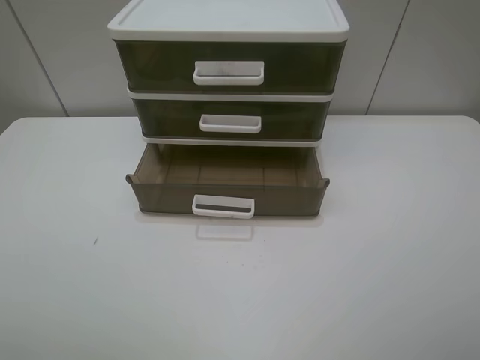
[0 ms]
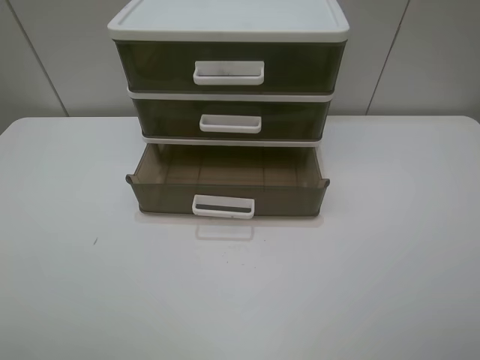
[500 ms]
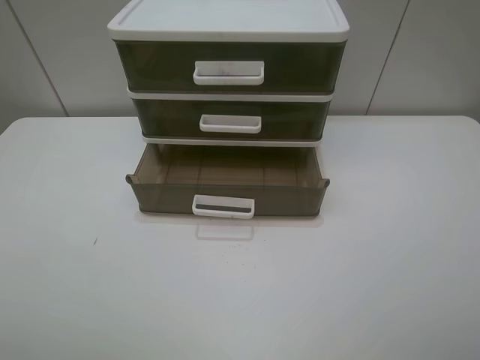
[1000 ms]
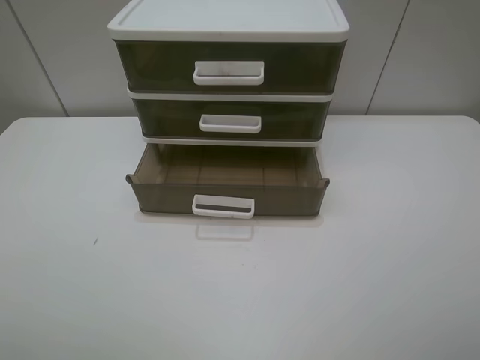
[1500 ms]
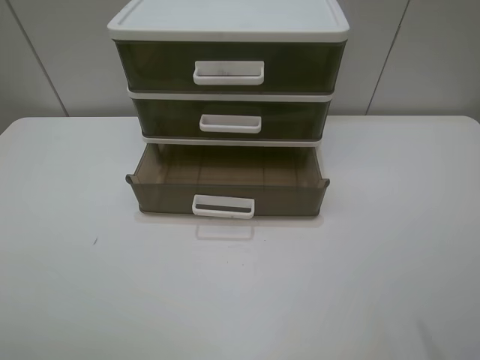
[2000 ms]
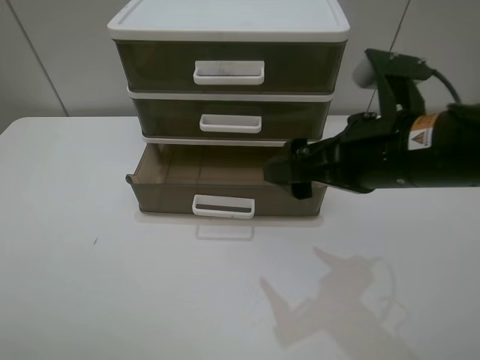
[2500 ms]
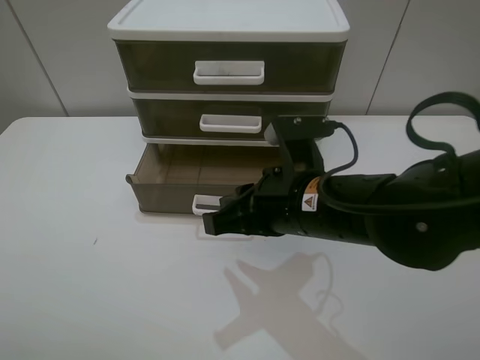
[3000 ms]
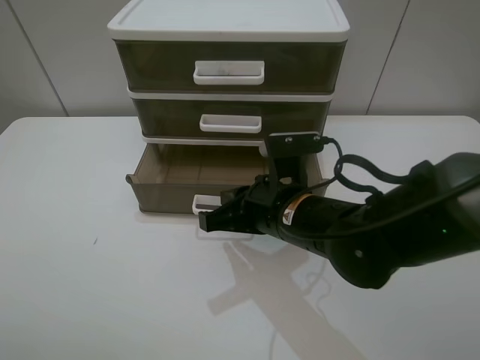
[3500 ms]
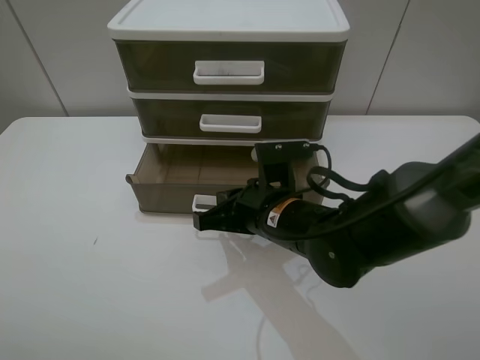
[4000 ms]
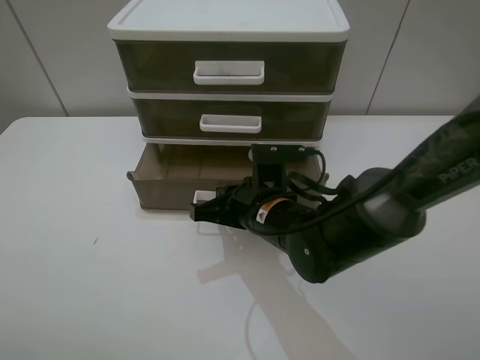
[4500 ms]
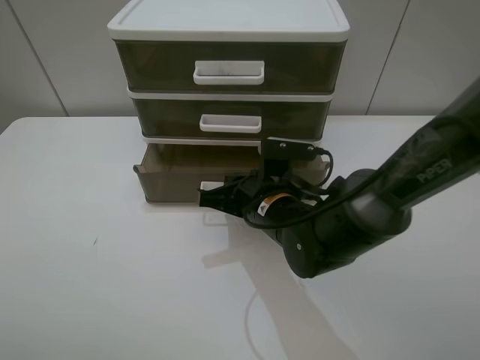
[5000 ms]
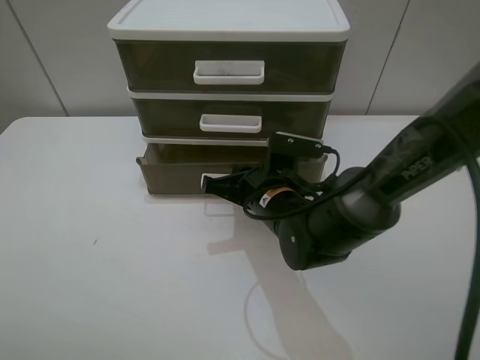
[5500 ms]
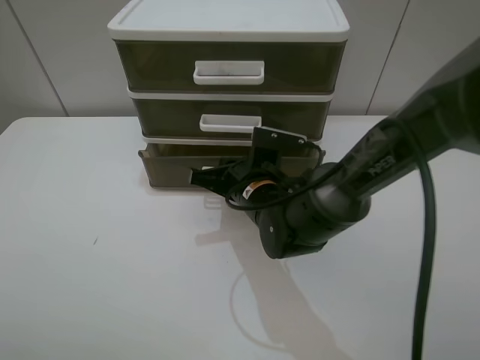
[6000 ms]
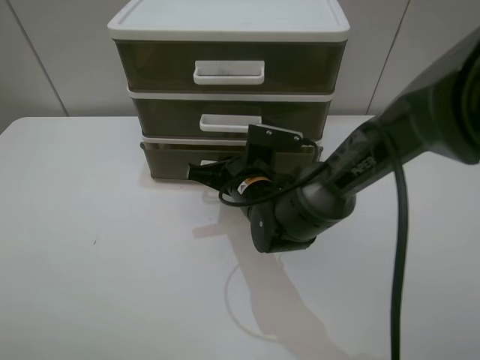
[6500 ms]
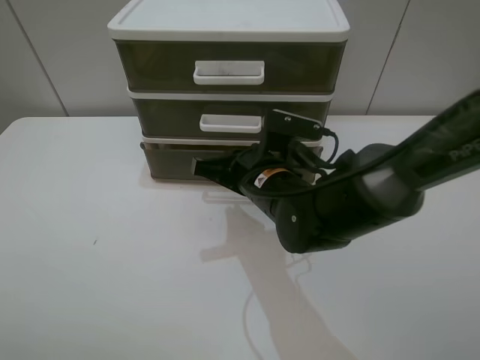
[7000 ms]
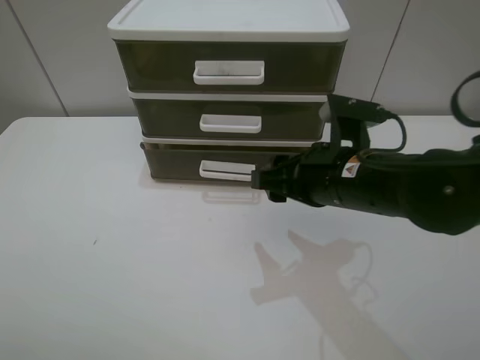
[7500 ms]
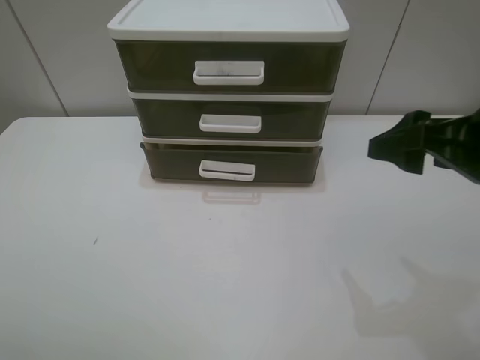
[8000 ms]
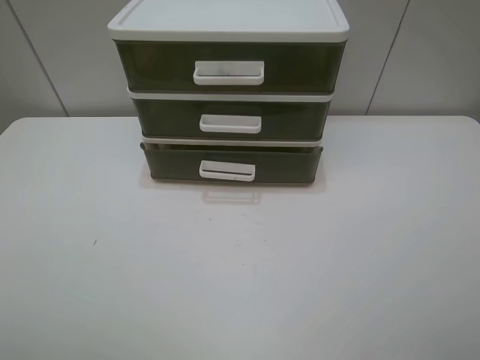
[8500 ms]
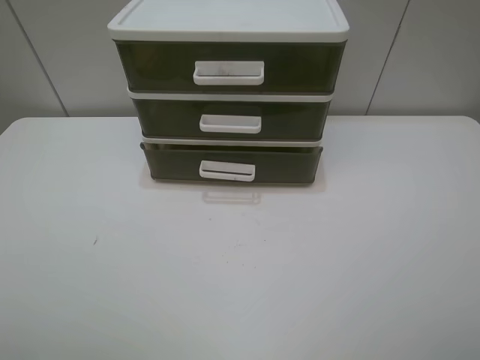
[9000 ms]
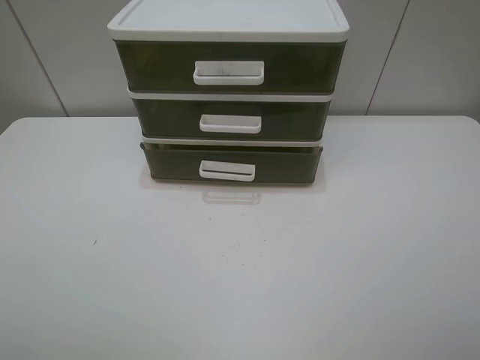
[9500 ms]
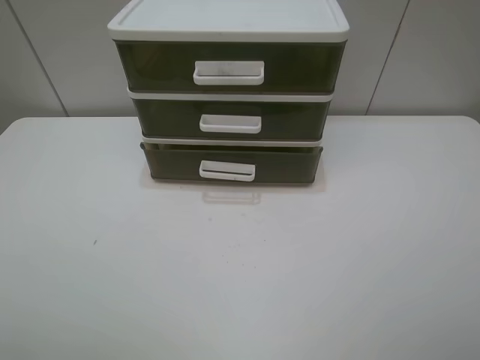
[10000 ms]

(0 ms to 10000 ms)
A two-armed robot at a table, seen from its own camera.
Task of the whole recording: close the bottom drawer.
Step, 0 ms - 4000 ms: Use the right gripper to contact the bottom layer of the storage cabinet.
Step, 4500 ms - 6500 ms: Push the bottom drawer closed.
2000 ms - 4000 ms: The right gripper is displaced to the left, downward and forward by about 35 cm, and closes its fingers.
4000 ms - 6000 ms: The right gripper shifts about 5 cm forward.
6000 ms - 8000 ms: The right gripper travels to the right, upward and backward by roughly 30 cm, and opens.
8000 ms - 10000 ms: The right gripper shifts roughly 15 cm backward.

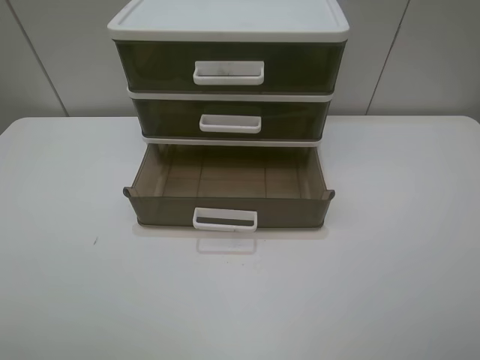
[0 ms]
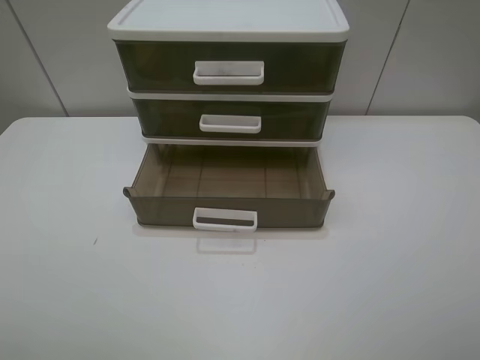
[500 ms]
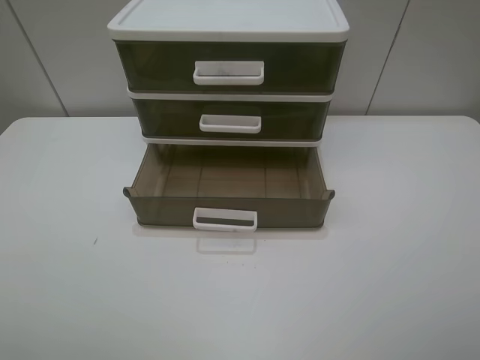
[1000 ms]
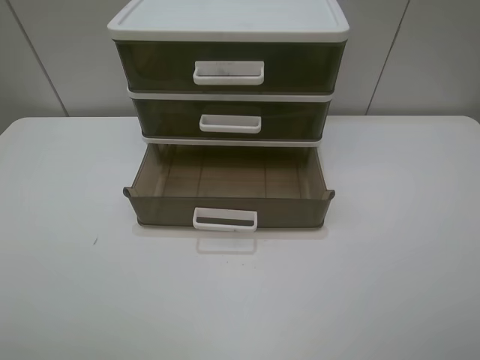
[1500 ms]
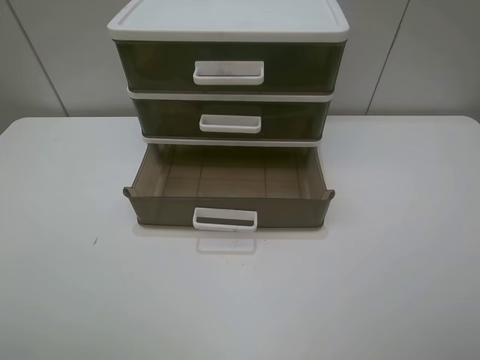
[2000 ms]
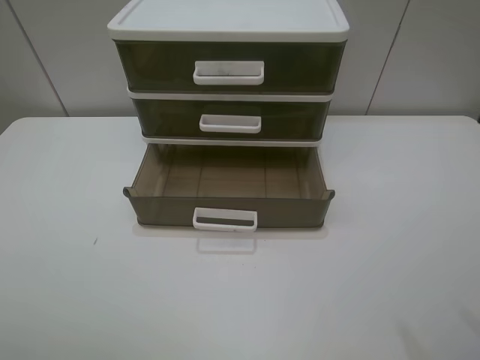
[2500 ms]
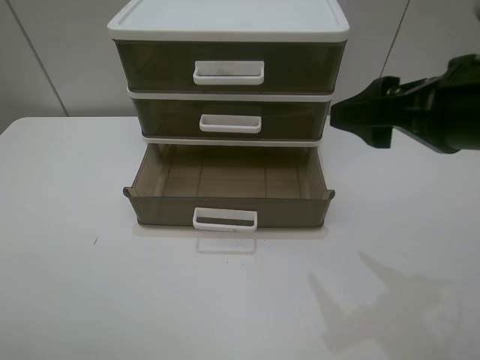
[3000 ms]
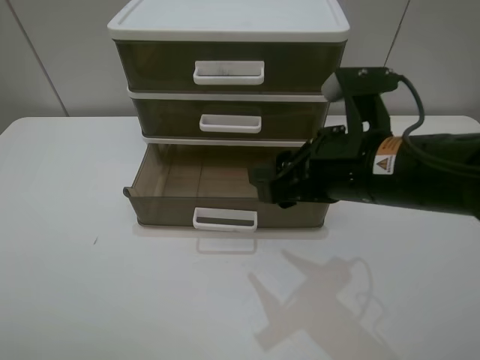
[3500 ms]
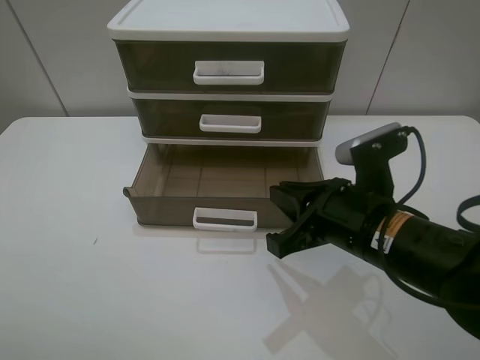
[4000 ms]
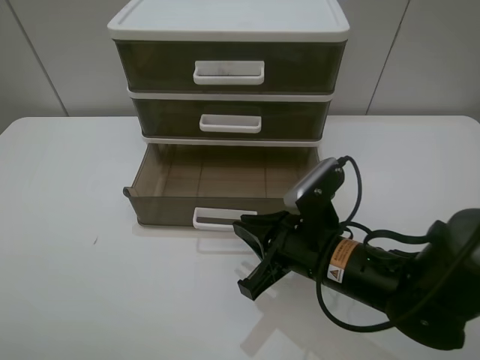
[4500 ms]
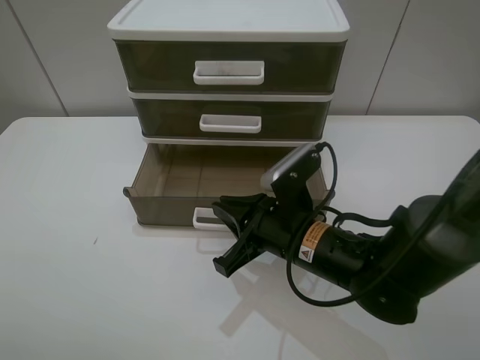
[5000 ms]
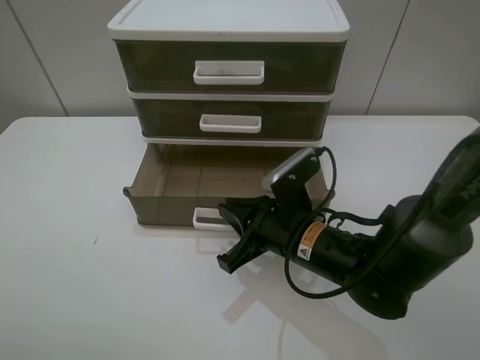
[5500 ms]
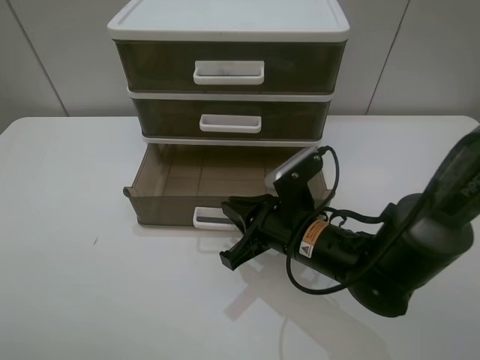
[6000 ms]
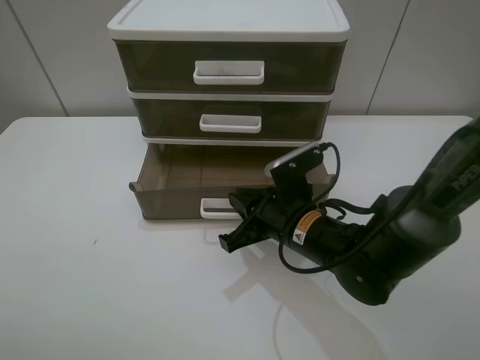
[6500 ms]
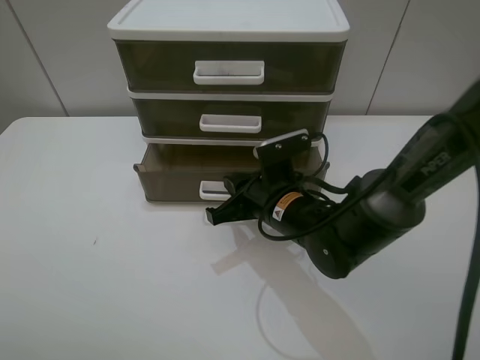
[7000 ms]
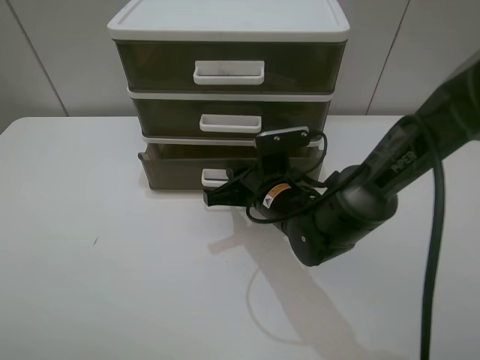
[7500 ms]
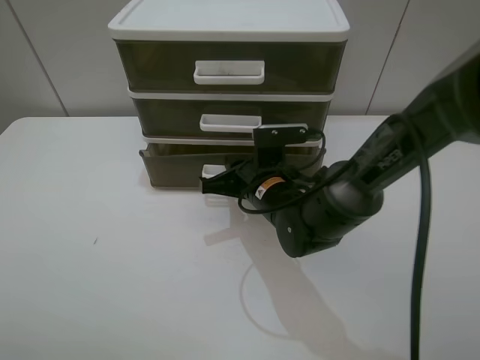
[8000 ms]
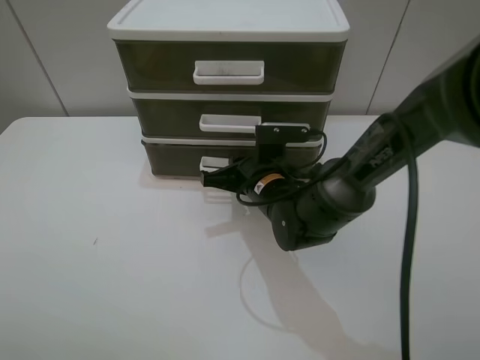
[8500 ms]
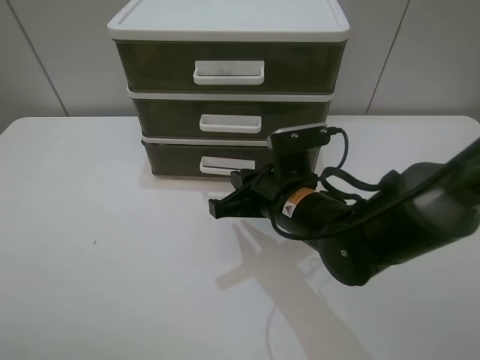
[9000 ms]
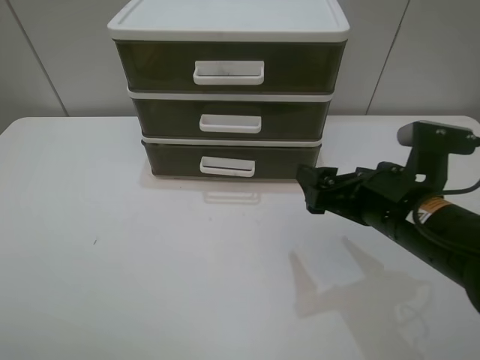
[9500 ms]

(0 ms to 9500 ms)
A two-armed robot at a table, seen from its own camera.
Task of the whole recording: close the bottom drawer.
Step, 0 ms - 5500 ms: Use the right gripper to contact the bottom layer of the storage cabinet.
Step, 6000 ms - 8000 ms: Push the bottom drawer closed.
0 ms - 2000 ms: The two grippers keep their place.
2000 ms - 4000 ms: The right gripper heads forward, to the left and downward, covering roughly 25 cm, and closes up.
4000 ms - 5500 ms: The right gripper moves downward and to the left, approximately 10 cm.
5500 ms - 7500 ms: The right gripper is displaced forward by approximately 5 cm.
7500 ms - 9500 ms: The right gripper travels to the right, backward and upward by approximately 20 cm, and opens up.

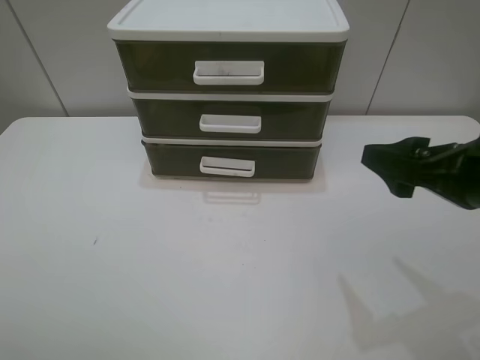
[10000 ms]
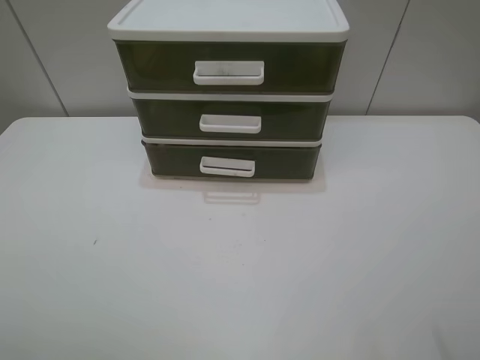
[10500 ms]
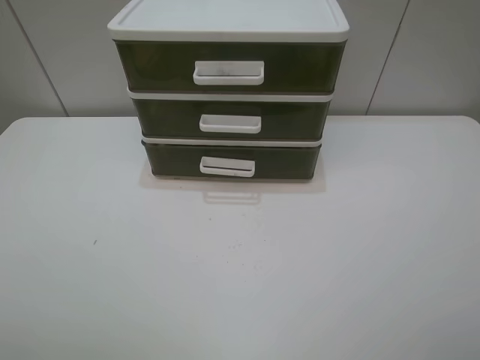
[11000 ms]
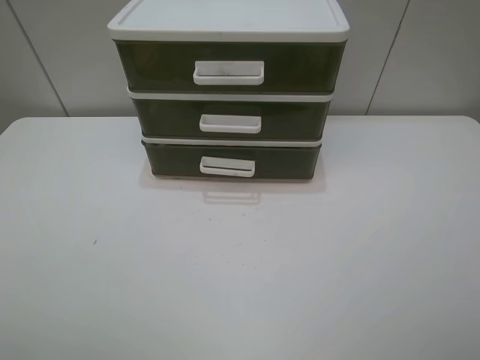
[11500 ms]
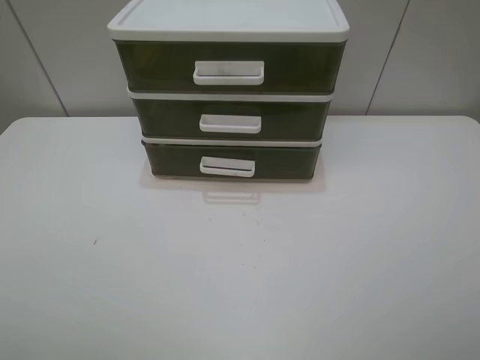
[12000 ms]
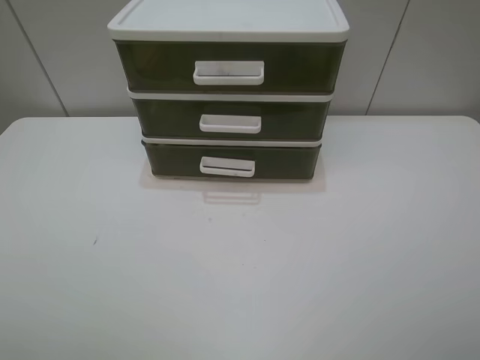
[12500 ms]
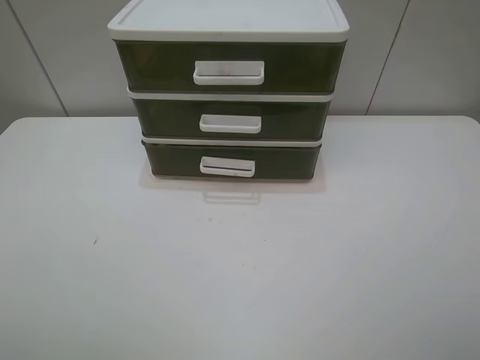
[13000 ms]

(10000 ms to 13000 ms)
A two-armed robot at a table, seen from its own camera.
Task of the whole recording: close the bottom drawer.
10000 ms - 11500 ms: The right gripper shifts about 15 cm backward and upward.
11500 ms - 13000 ms: Both grippers stay put.
